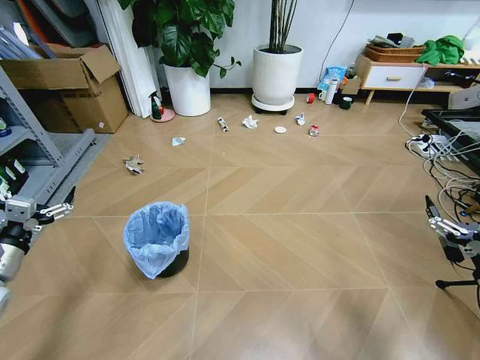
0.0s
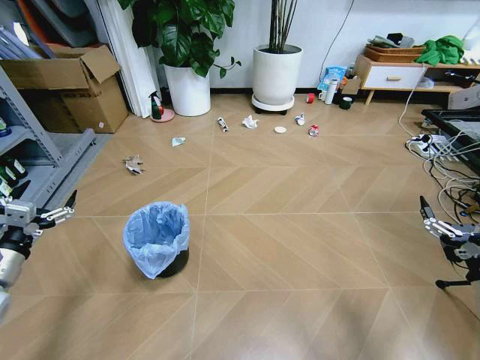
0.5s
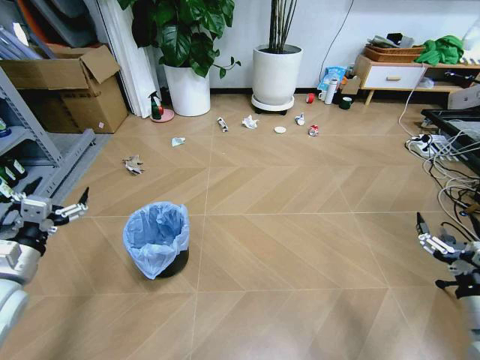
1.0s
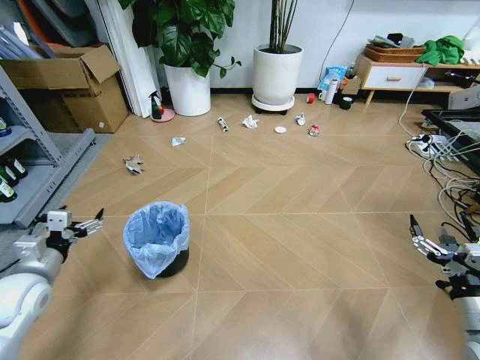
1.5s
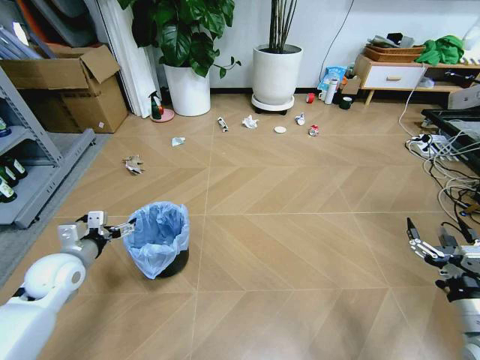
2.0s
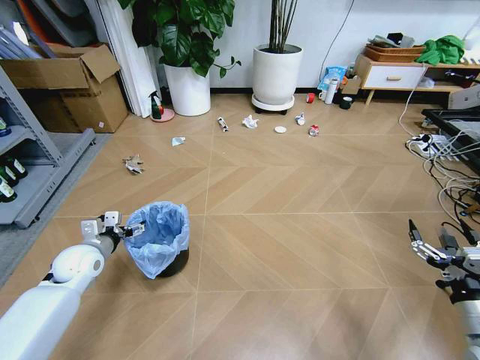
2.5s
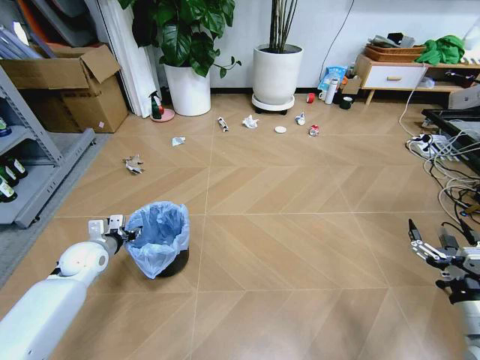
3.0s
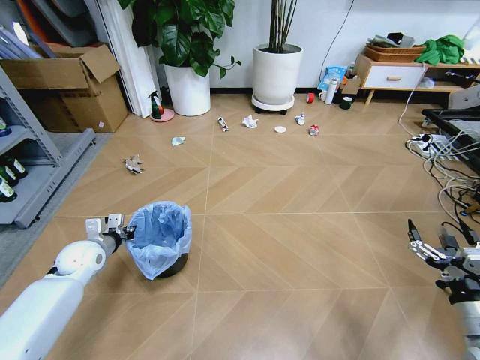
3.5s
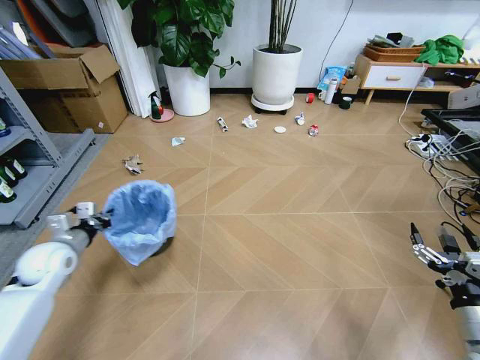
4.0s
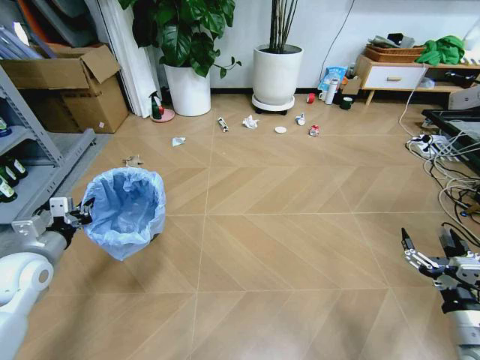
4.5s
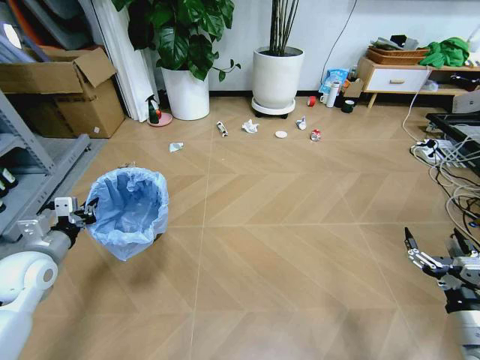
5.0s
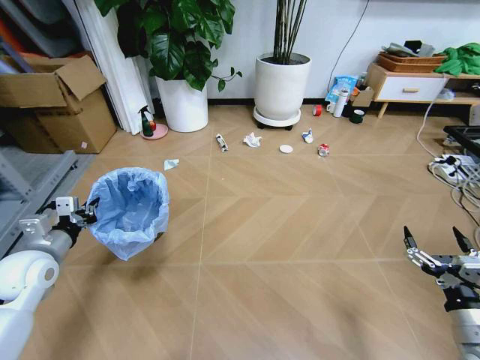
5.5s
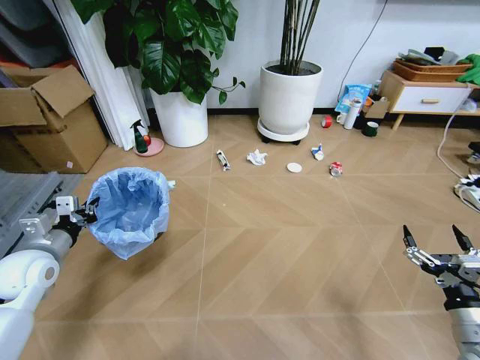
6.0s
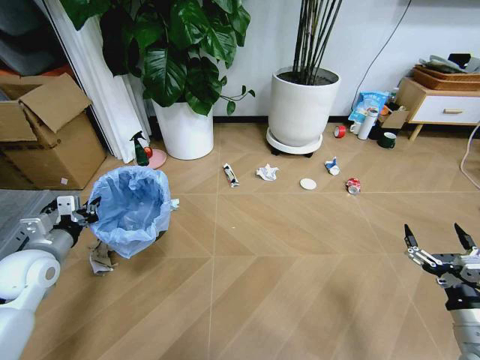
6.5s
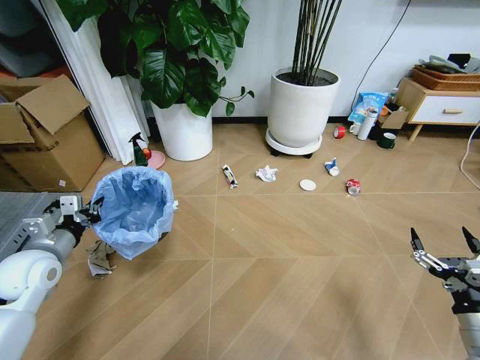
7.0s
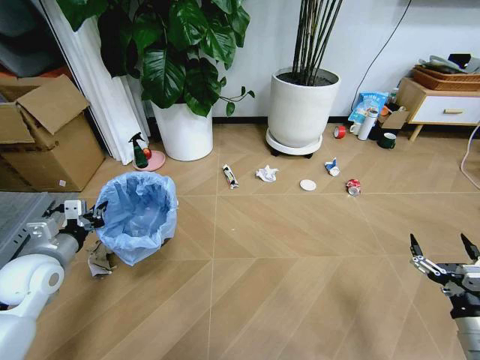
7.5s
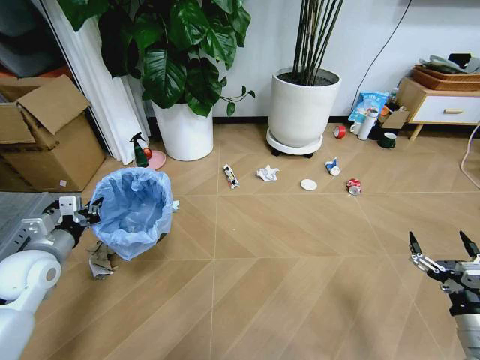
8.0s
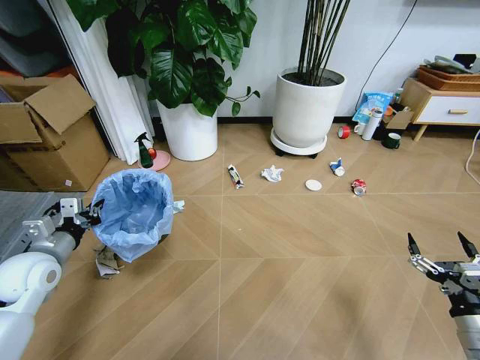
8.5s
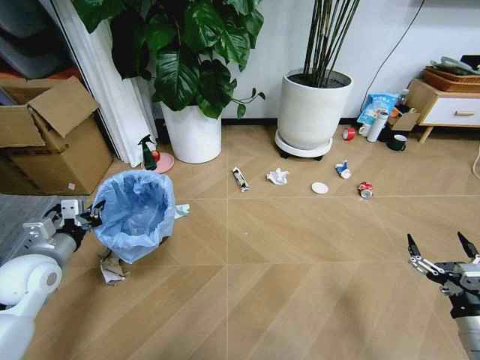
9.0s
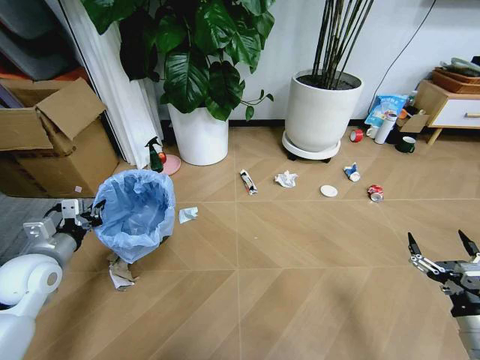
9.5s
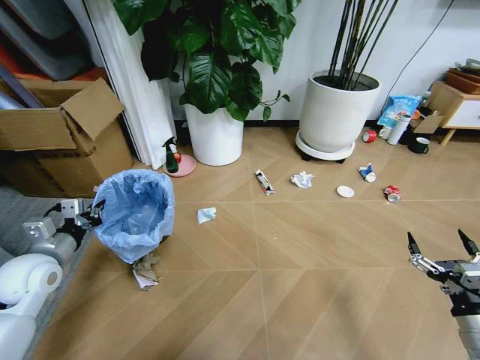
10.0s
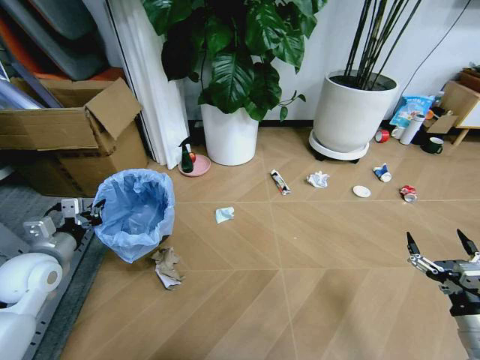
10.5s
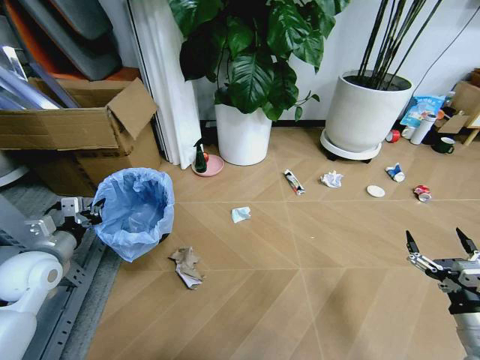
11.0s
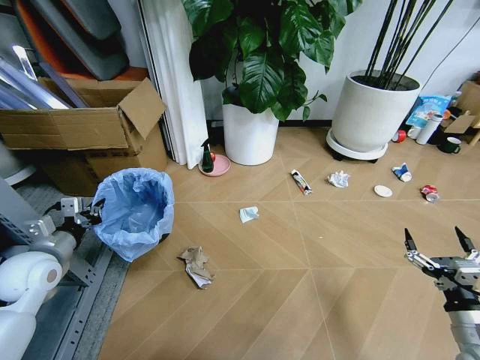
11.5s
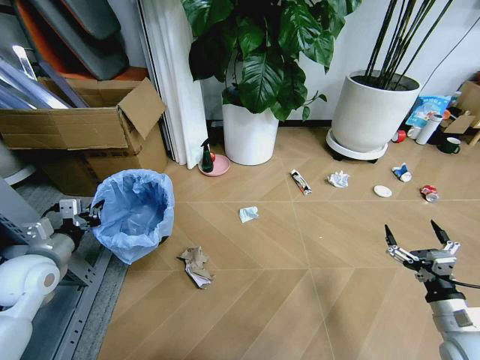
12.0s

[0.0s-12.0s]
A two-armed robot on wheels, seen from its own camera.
Task of the whole recording: Pick up the trash bin and place the garbage on the floor into it.
2.0s to 4.0s: The left gripper closes up.
4.0s to 6.0s: The left gripper ends up some 5 cm from where it was.

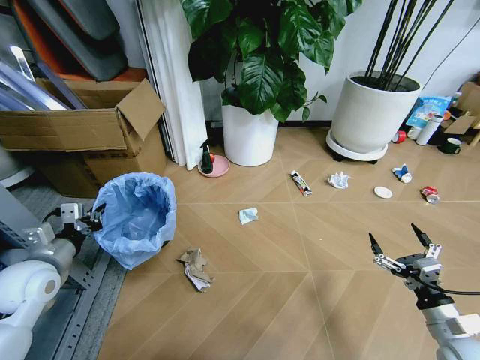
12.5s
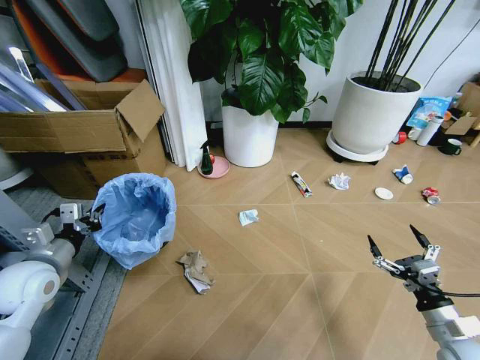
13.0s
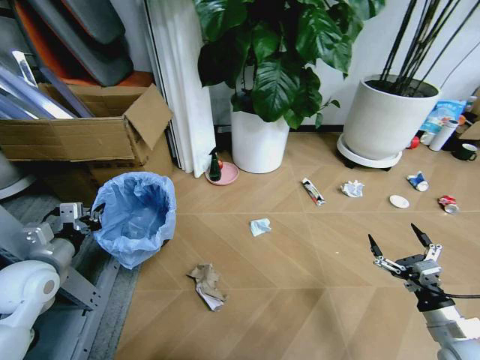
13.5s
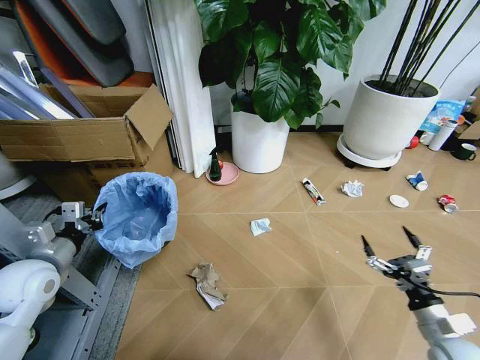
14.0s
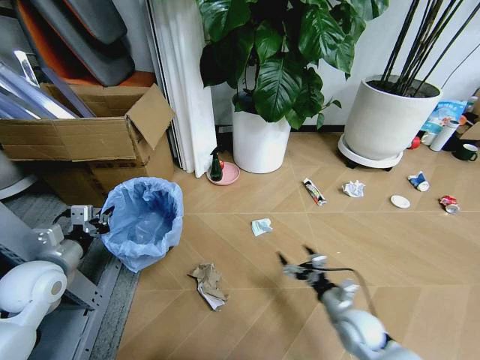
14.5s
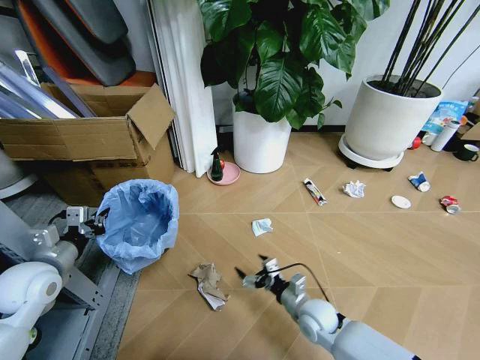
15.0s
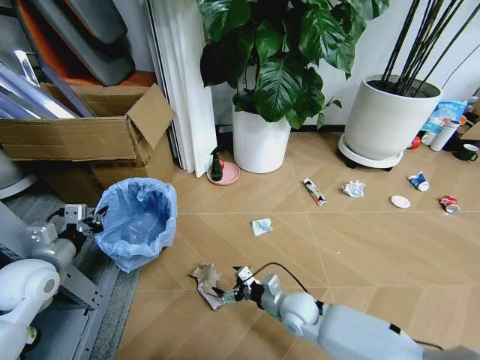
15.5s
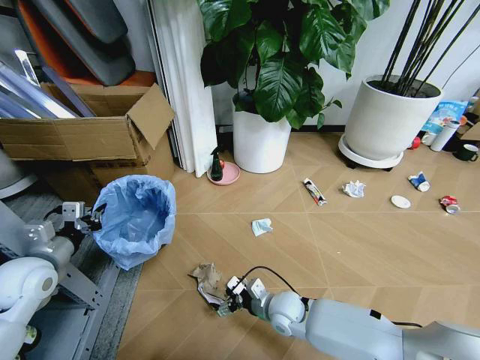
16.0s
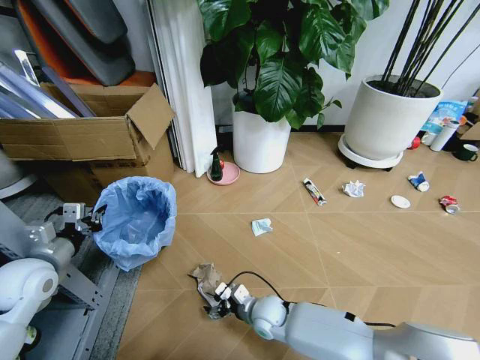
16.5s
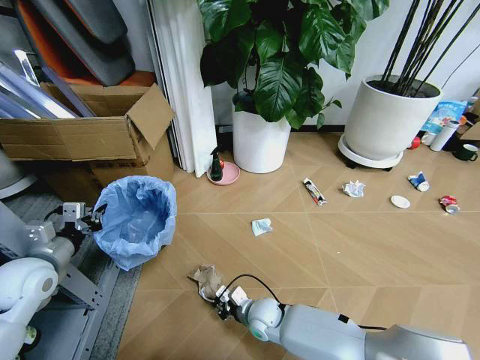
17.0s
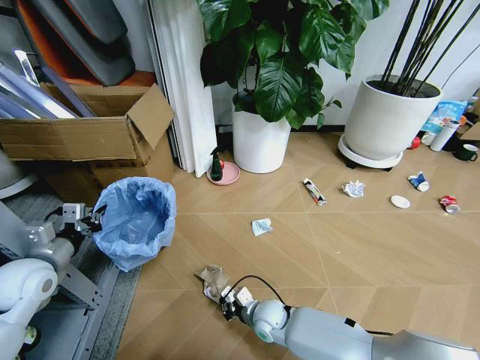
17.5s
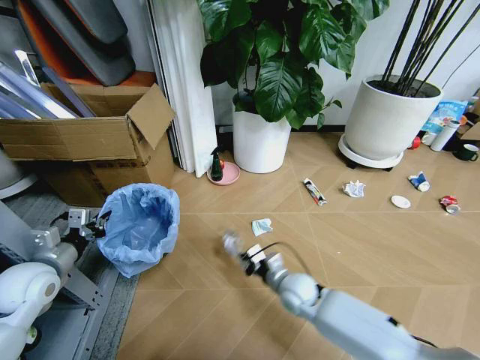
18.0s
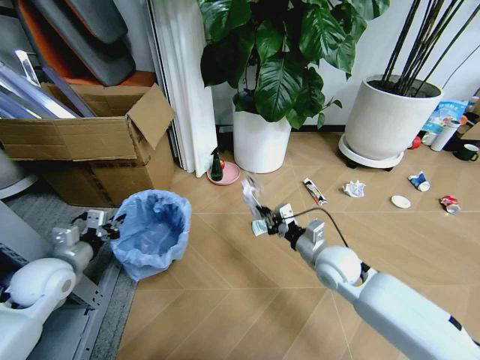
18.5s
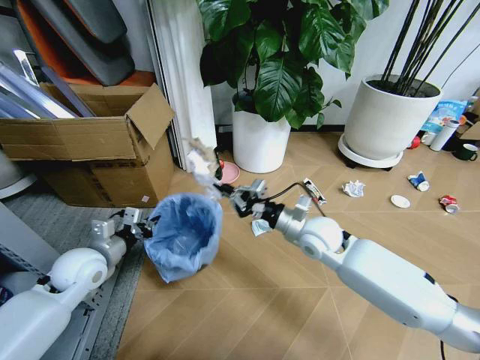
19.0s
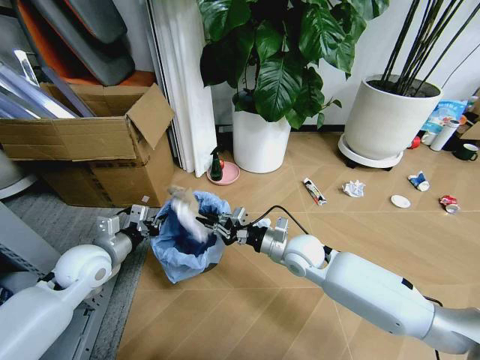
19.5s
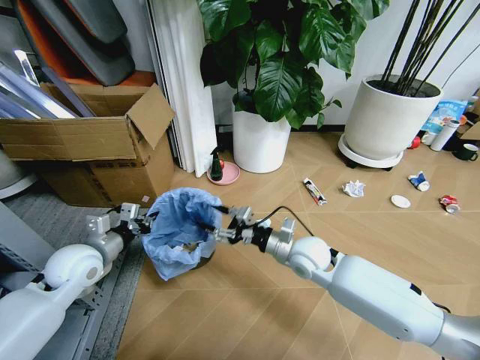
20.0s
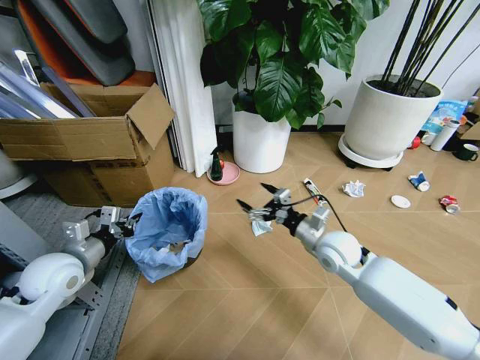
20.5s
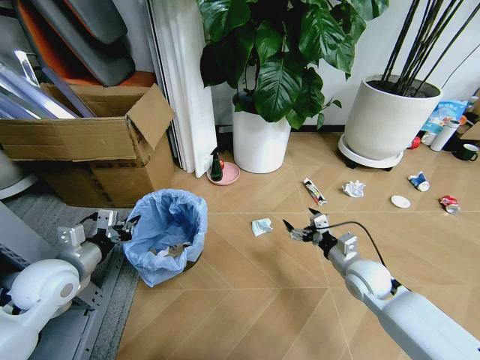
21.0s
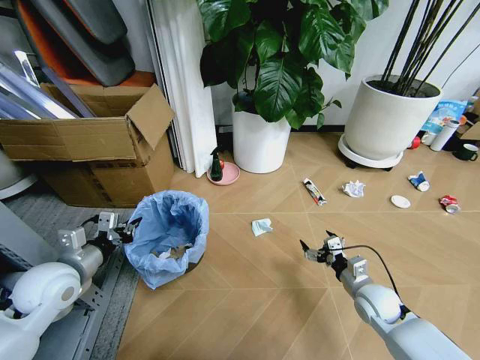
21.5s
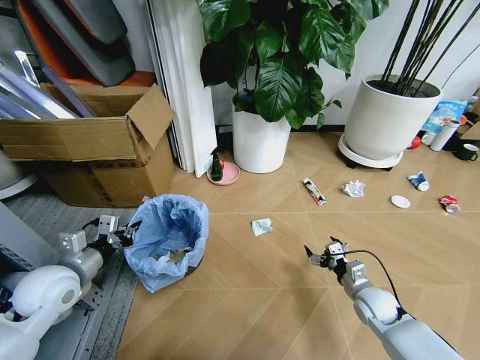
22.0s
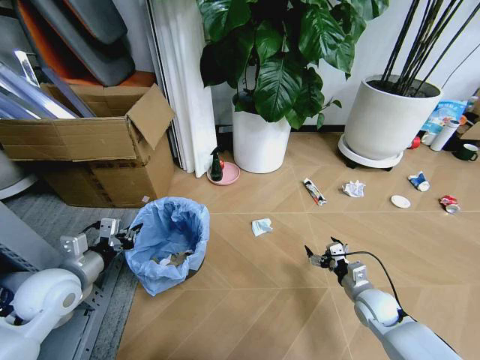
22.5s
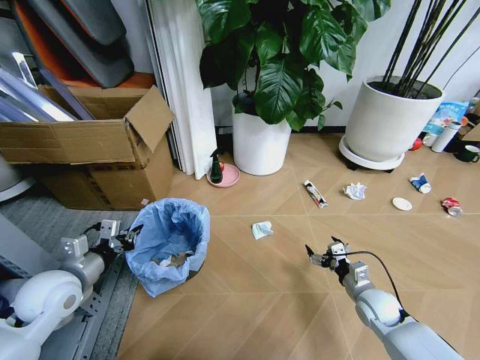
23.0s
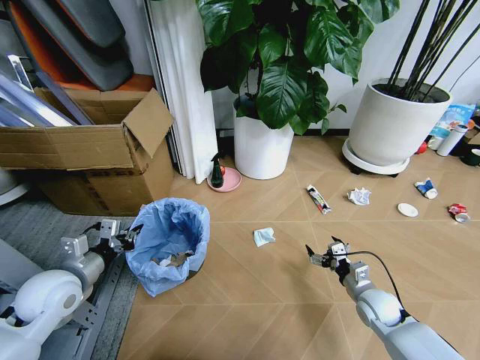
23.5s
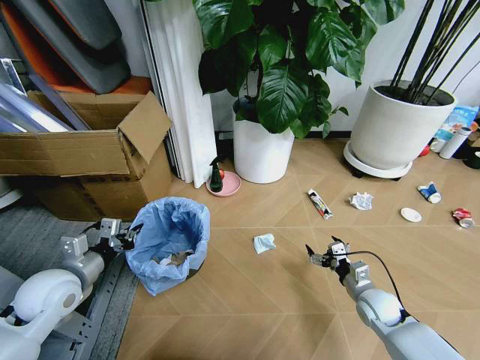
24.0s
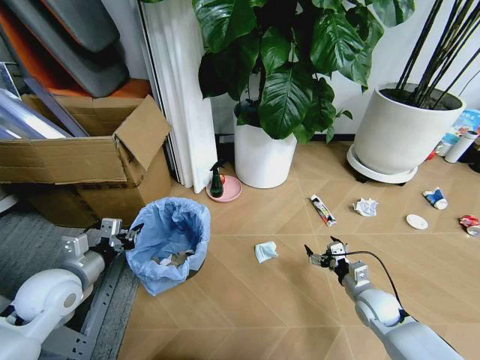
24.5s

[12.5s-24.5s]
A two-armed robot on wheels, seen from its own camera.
Task of the whole recording: Pick up the trash bin and place the garbage on the floor into it.
12.5s to 14.5s: The right gripper heads to the left, downward and forward, covering some 15 cm.
14.5s to 16.5s: The right gripper heads to the left, covering roughly 20 cm.
16.5s to 18.5s: The right gripper shifts roughly 20 cm upward and to the right, and closes its fingers.
18.5s to 20.5s: The right gripper travels to the left and back again, approximately 5 cm each way, and opens its fingers.
20.5s to 22.5s: The right gripper travels downward, to the right and backward by some 20 cm.

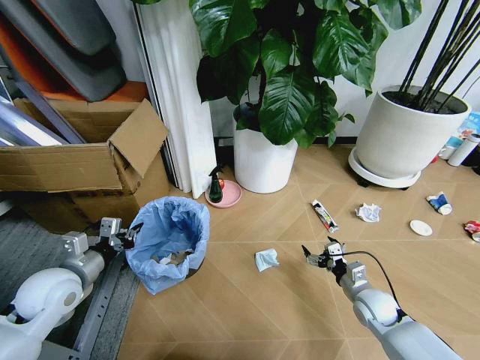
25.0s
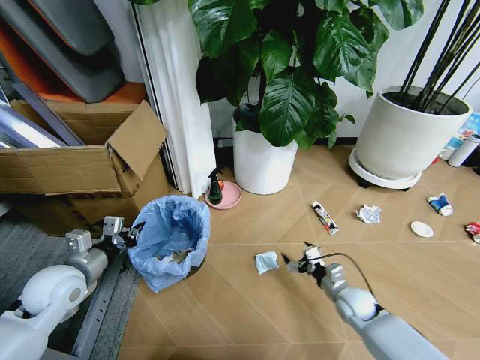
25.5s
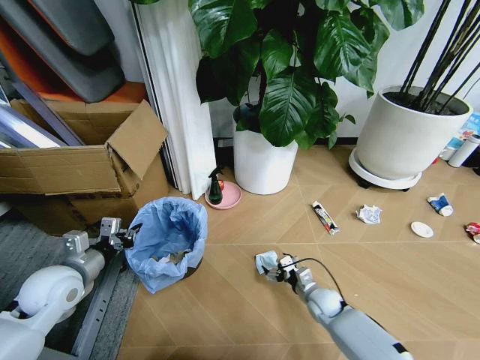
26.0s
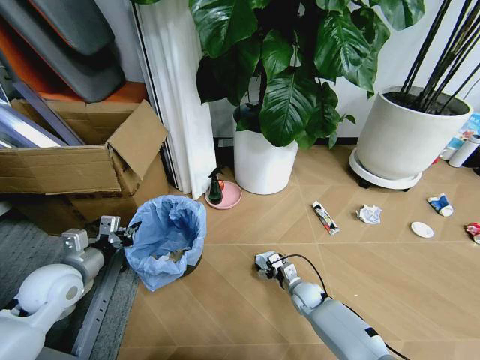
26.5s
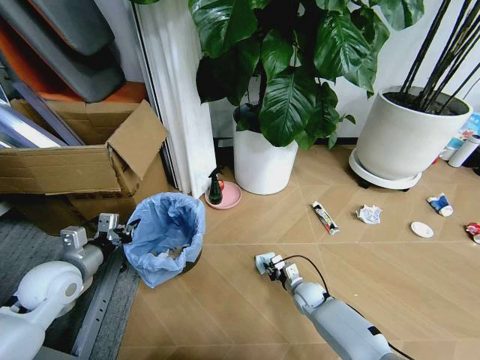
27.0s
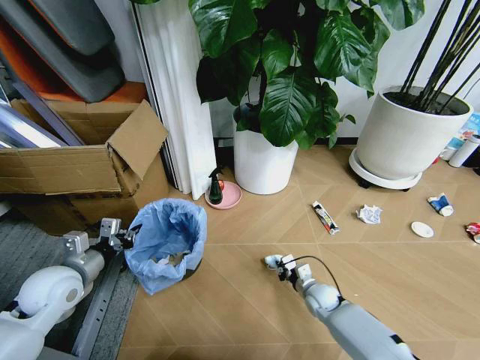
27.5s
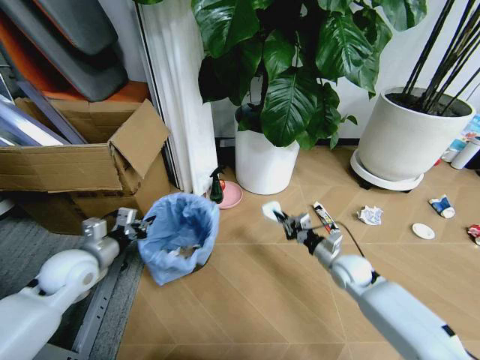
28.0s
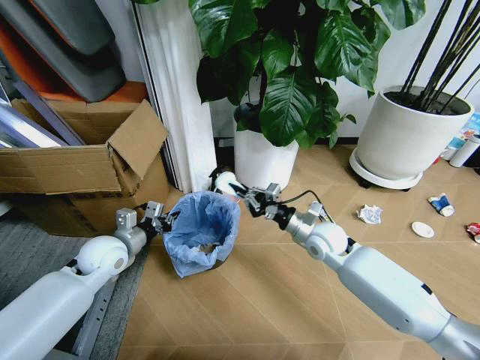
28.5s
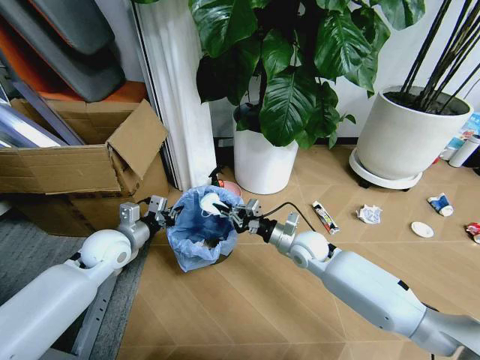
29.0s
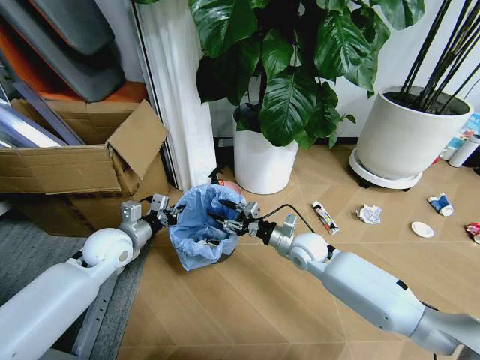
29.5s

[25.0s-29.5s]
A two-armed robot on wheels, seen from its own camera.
Task of the whole recording: Pick up the trash bin and place the garbage on the floor into it.
25.0s to 27.0s: The right gripper heads to the left, downward and forward, covering about 20 cm, and closes its fingers.
27.0s to 29.5s: The left gripper shifts about 10 cm forward and to the right, while the right gripper is displaced upward by roughly 20 cm.
